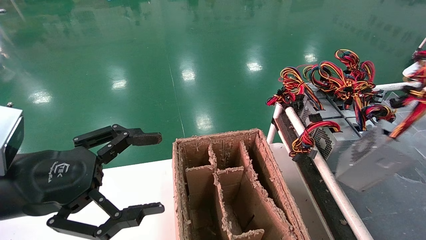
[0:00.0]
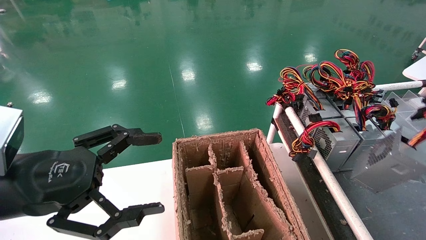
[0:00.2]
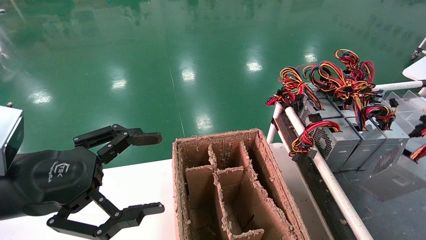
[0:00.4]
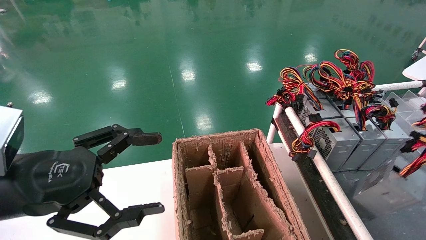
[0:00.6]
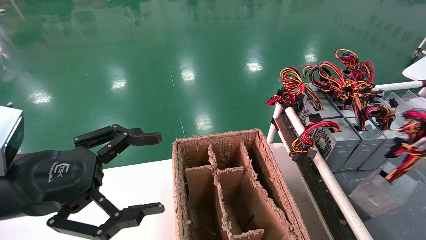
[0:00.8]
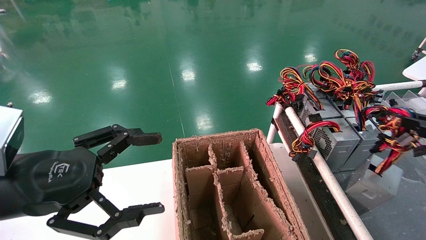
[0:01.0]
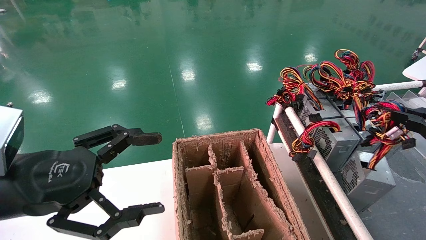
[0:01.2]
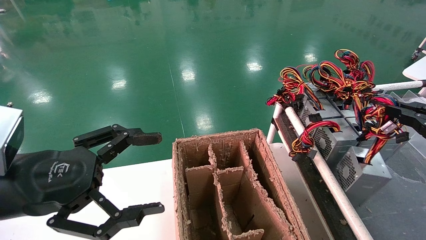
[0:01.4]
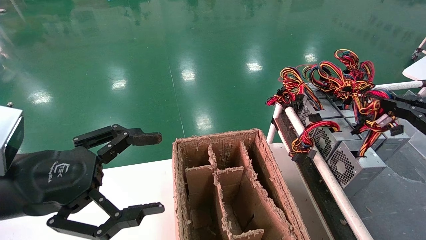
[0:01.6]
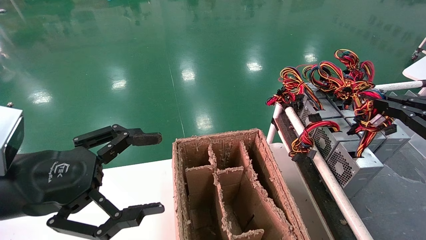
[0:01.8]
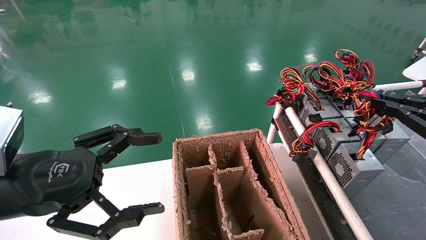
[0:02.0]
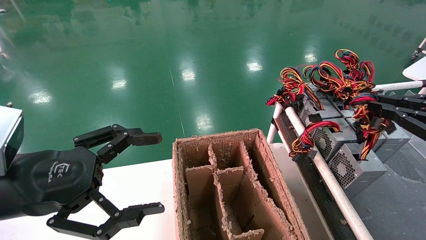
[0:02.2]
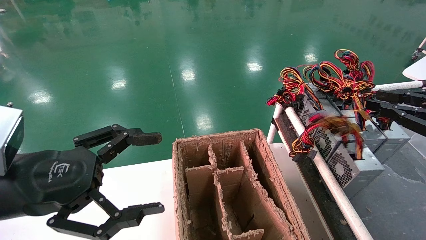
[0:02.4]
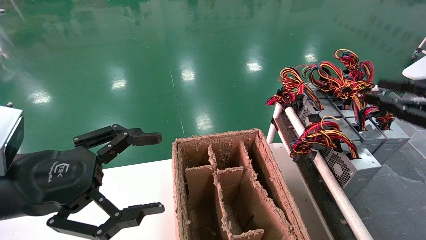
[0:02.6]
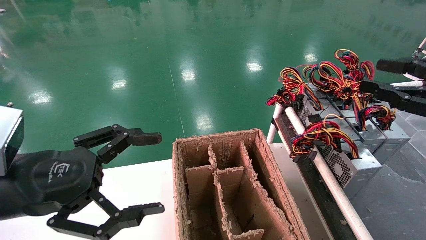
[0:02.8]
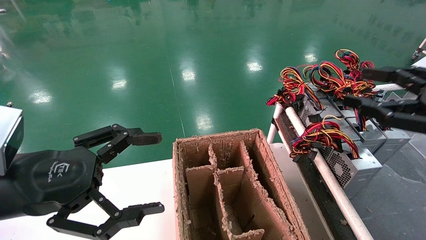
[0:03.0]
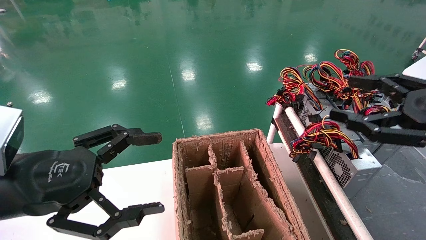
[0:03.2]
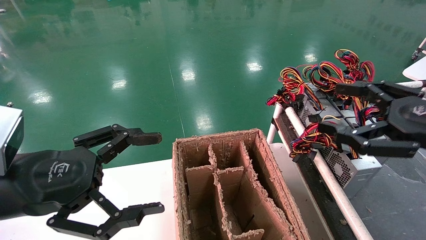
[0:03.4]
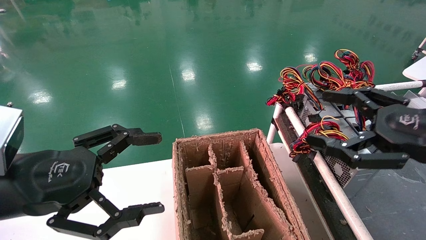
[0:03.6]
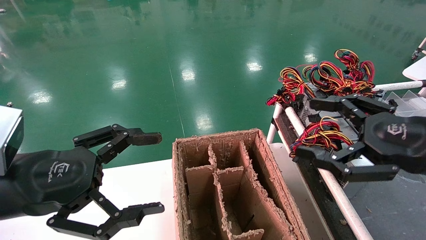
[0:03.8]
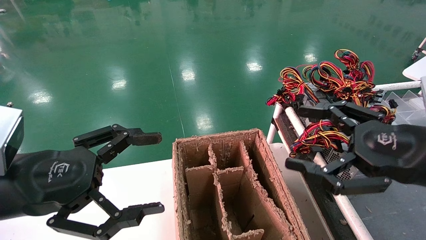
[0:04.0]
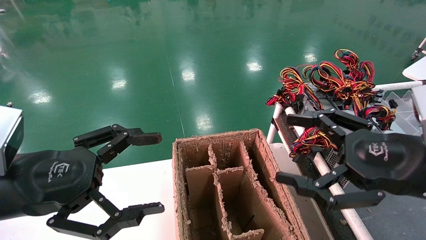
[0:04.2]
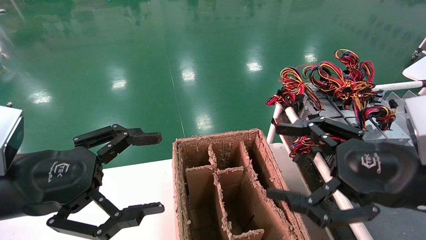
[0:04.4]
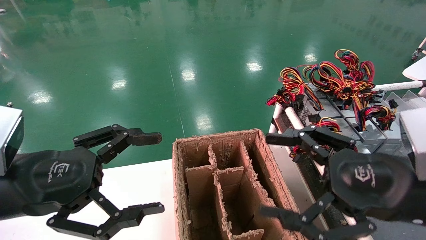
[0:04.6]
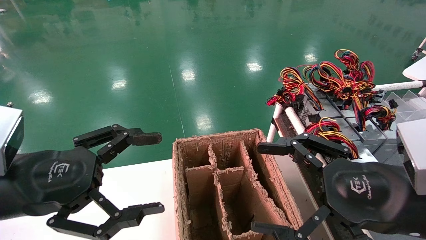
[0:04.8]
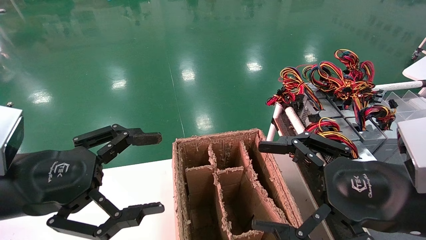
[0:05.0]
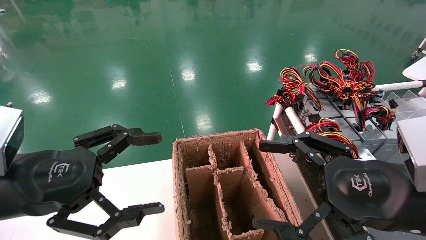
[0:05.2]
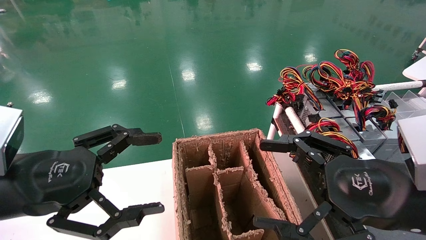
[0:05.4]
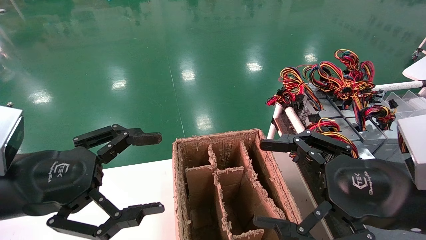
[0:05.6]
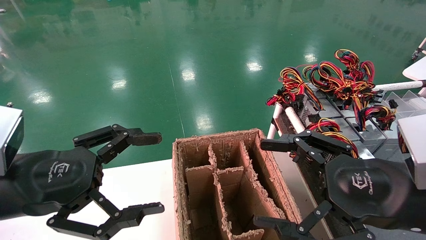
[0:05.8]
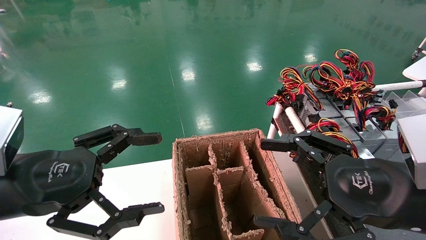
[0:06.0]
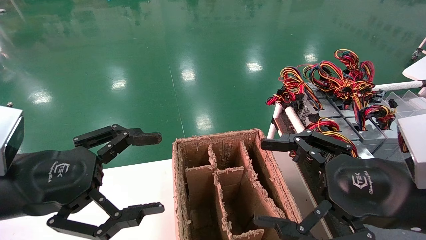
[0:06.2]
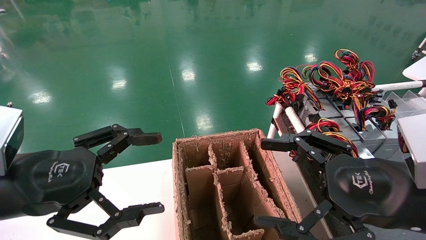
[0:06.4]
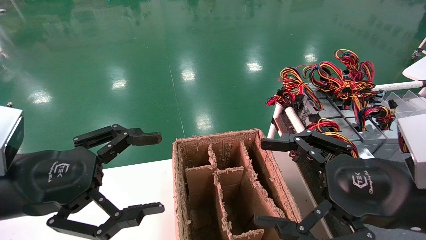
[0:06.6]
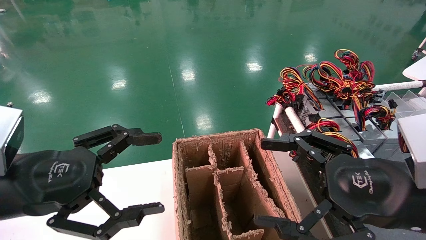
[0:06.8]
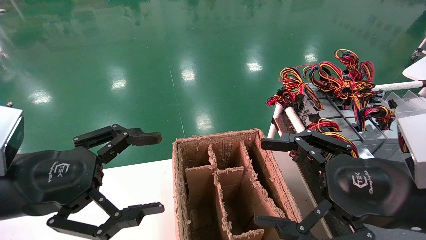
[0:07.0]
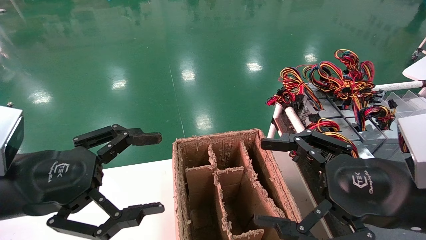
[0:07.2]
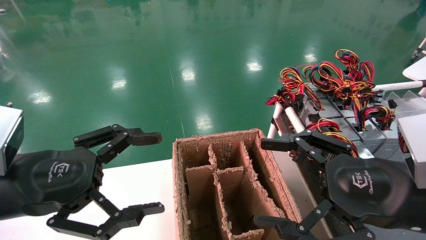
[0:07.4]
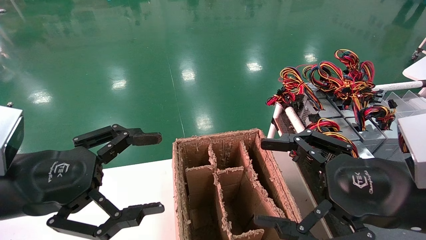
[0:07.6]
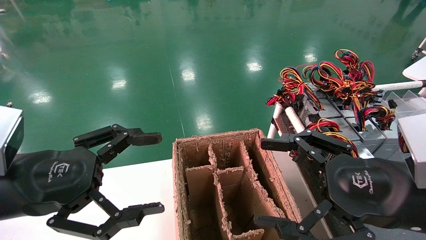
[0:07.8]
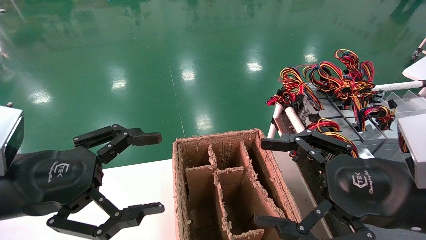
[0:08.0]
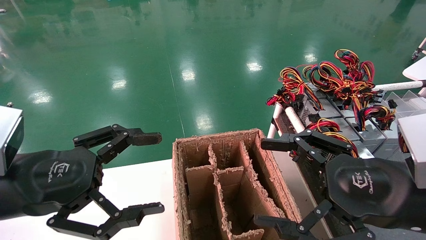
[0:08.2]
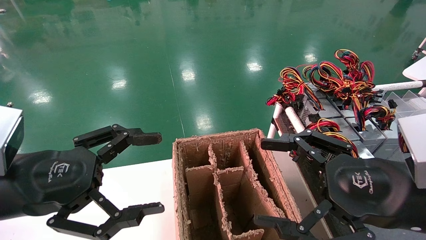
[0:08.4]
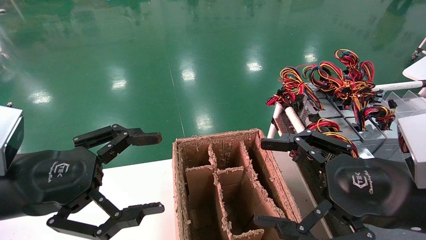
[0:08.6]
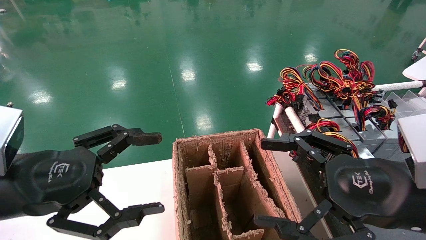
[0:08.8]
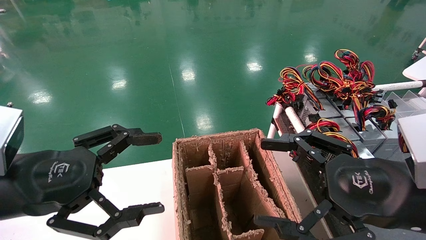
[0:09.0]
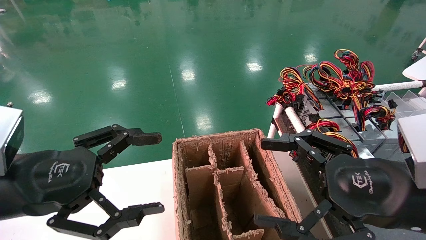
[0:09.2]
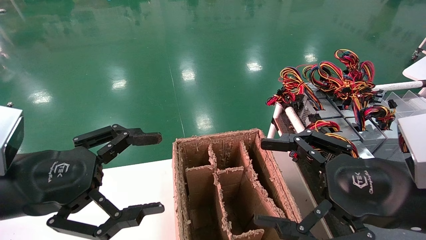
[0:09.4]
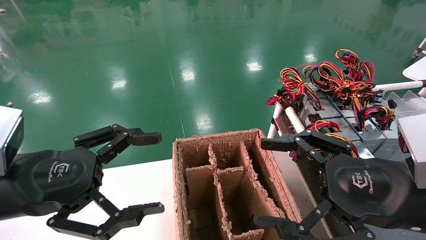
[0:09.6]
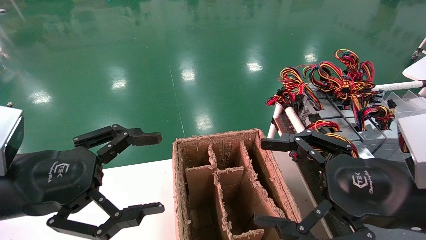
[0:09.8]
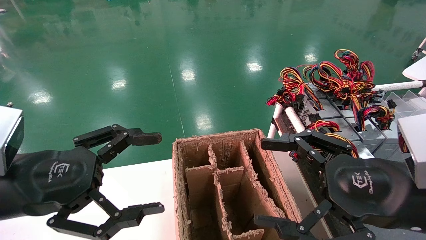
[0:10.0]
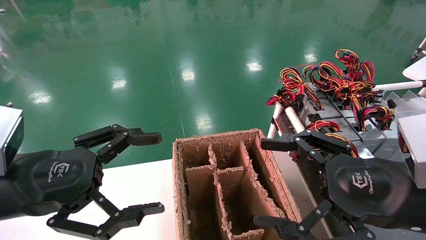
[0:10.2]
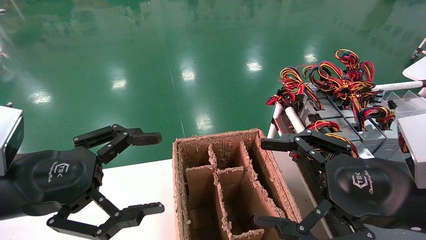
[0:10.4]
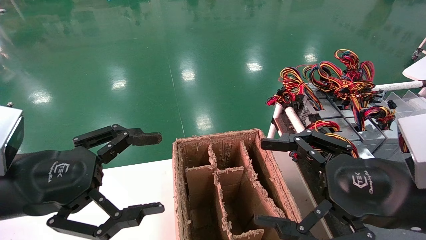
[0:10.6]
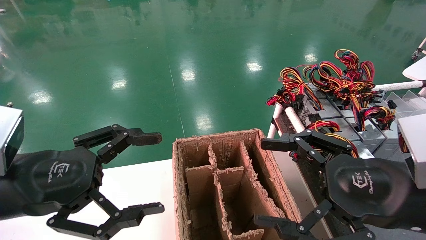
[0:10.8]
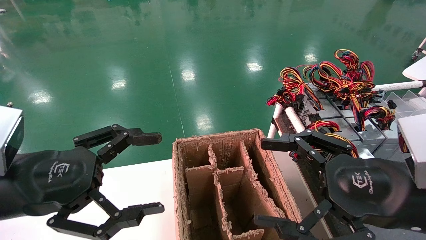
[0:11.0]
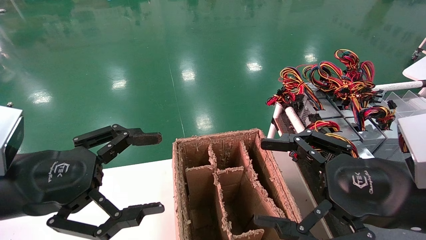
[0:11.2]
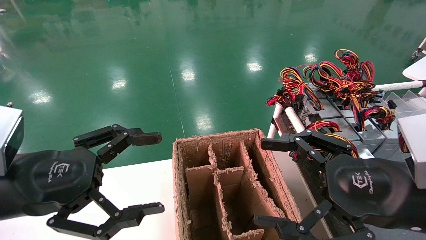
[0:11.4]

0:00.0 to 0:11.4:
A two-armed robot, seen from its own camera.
Step, 0:00.0 to 0:02.2: Place the power supply on the operating table.
0:00.0 to 0:01.4: The right gripper heads downward, covering some 5 cm.
0:01.4 to 0:02.8: The right gripper changes place by approximately 5 cm, and opens its fingers.
0:02.8 to 0:04.2: The right gripper is displaced to the left by about 10 cm, and opens.
0:04.2 to 0:05.6: The grippers stay close to where they were, moving slightly.
0:05.6 to 0:11.4: The two grippers keep their place.
